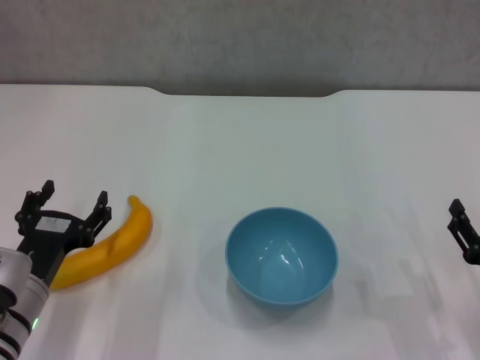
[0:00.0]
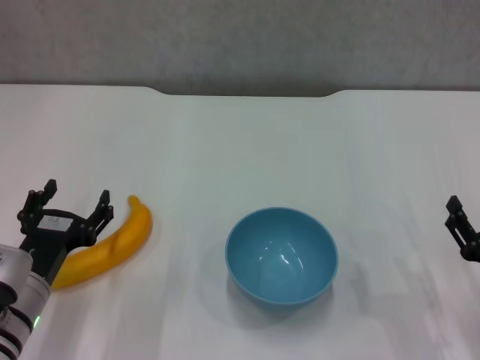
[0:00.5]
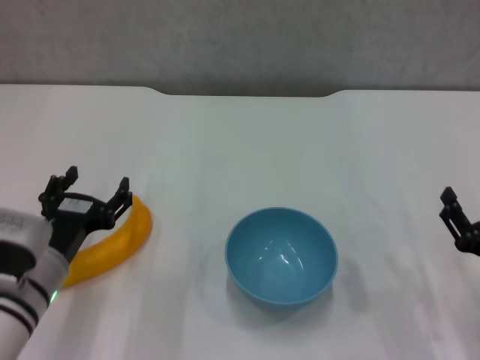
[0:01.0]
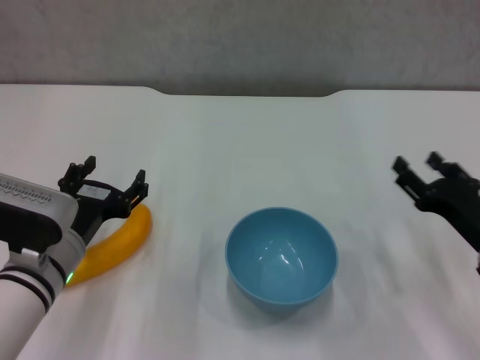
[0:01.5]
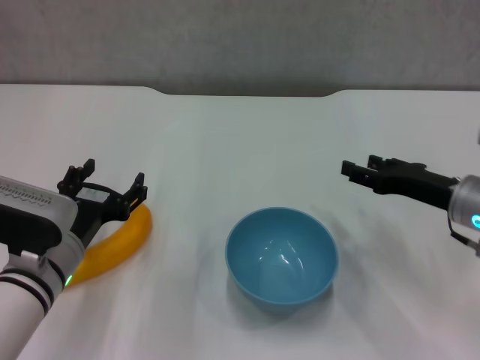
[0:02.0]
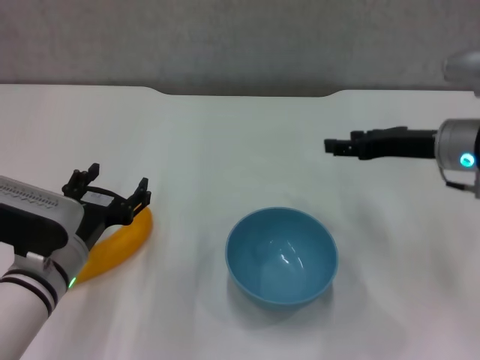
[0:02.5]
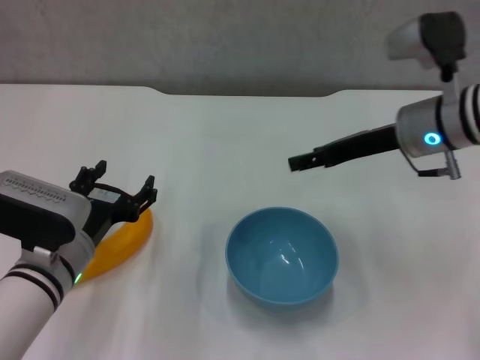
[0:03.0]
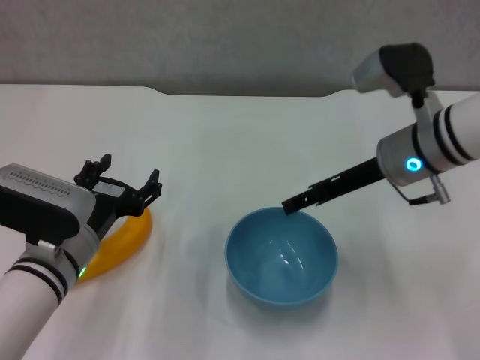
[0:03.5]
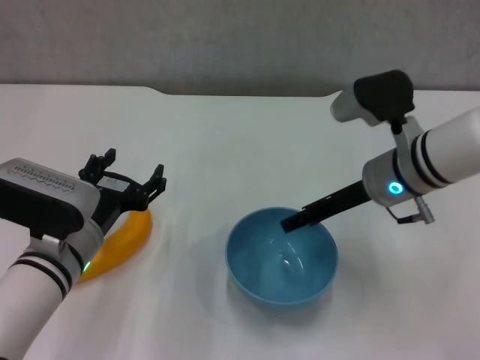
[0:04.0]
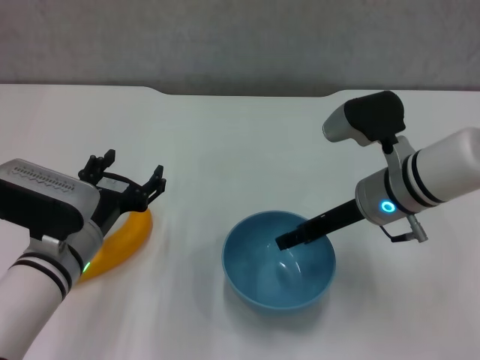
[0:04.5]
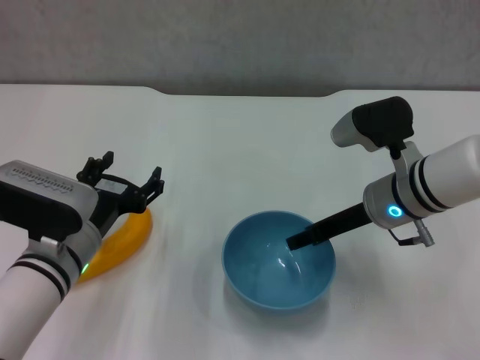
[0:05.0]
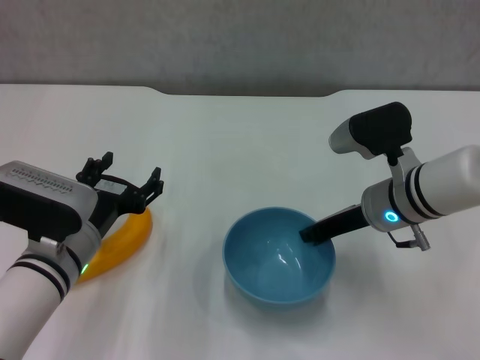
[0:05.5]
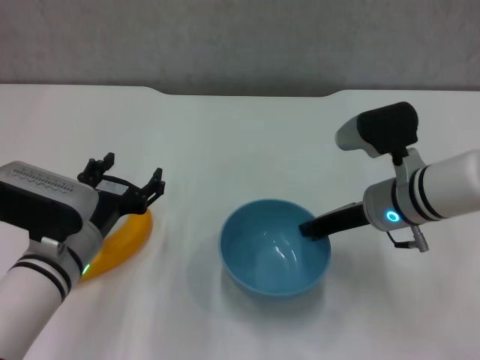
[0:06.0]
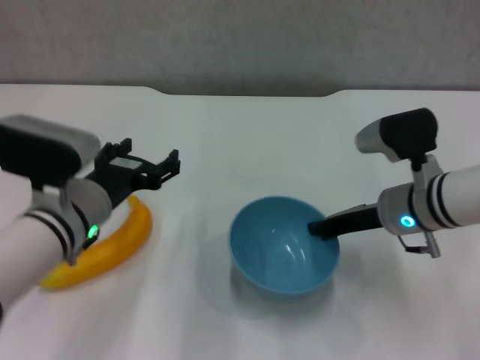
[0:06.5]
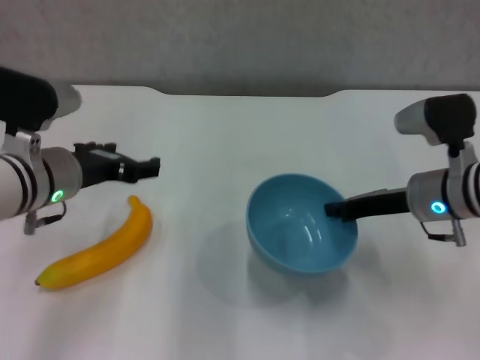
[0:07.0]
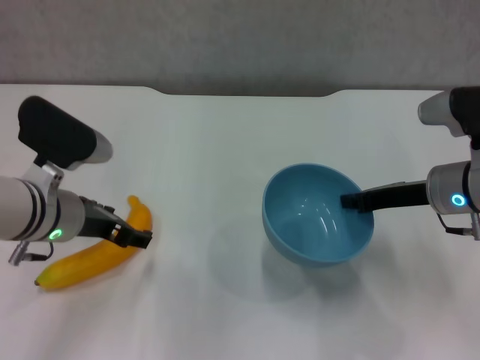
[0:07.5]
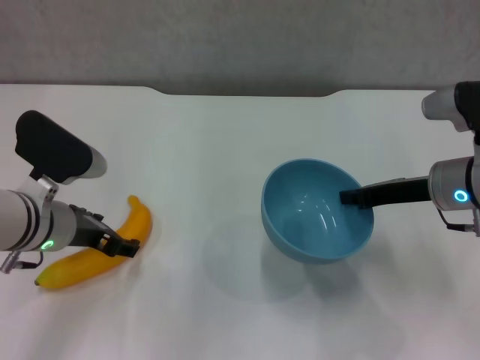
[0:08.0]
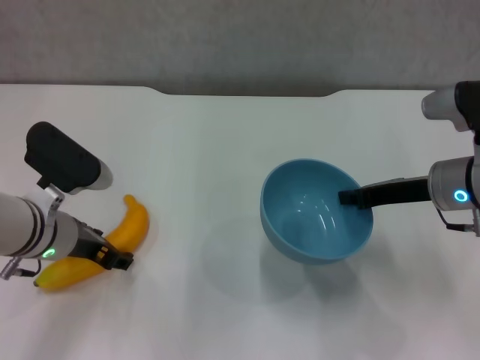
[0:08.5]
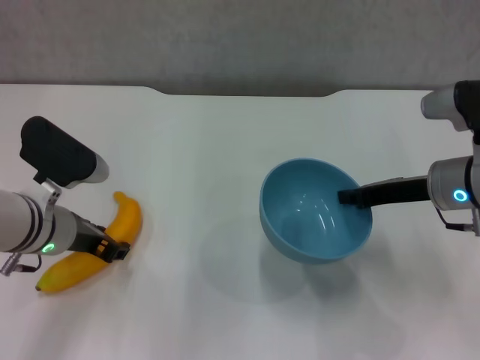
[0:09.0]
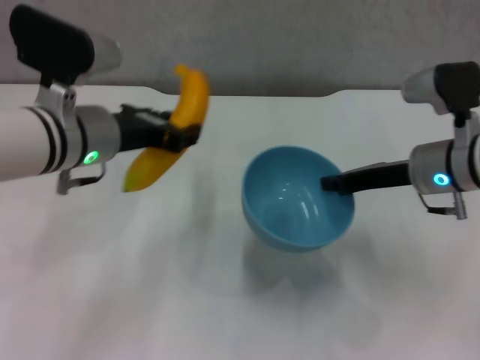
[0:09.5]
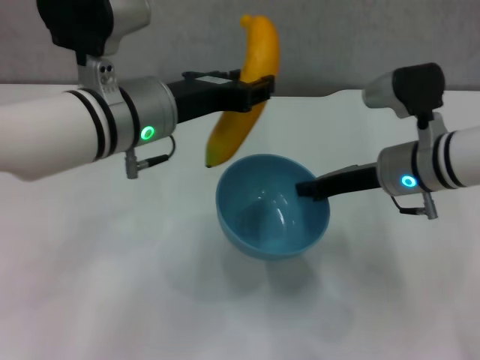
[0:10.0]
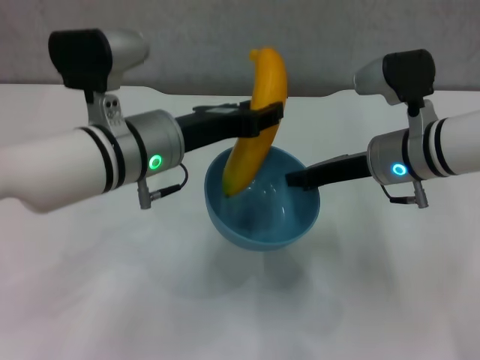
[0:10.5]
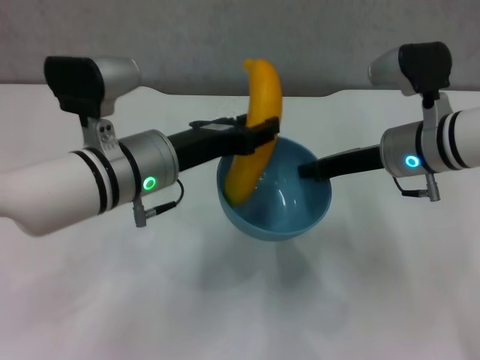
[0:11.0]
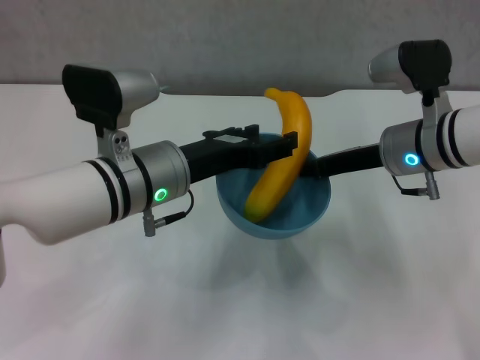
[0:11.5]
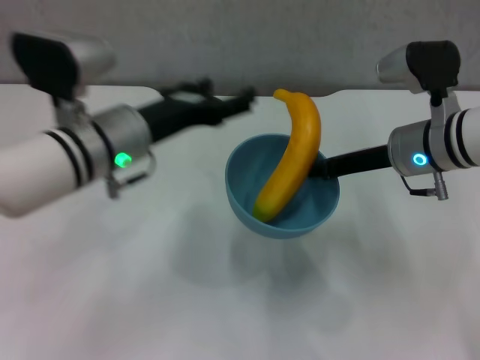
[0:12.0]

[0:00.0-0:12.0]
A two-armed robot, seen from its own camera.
Step, 0:00.0 to 0:05.5: Grasp the blue bowl with right gripper.
Step, 0:06.0 to 0:07.0: Lift the blue bowl with right gripper.
Step, 0:07.5 to 0:08.5: Grasp the banana with left gripper.
Step, 0:09.0 to 0:11.5: Place the banana in the blue bowl with left gripper.
0:00.0 to 0:02.0: The left gripper changes place by some 5 cm; the right gripper heads forward, covering about 15 cm.
0:02.0 to 0:04.0: The right gripper moves to the left, about 10 cm.
0:04.0 to 0:06.0: The right gripper closes.
0:06.0 to 0:08.0: The right gripper heads to the right, covering approximately 5 cm; the left gripper changes place by roughly 5 cm.
0:08.0 to 0:10.0: The right gripper goes approximately 5 cm to the left; the left gripper goes some 15 cm upward and to the right, and closes its fingers.
0:10.0 to 0:12.0: The left gripper opens its fingers.

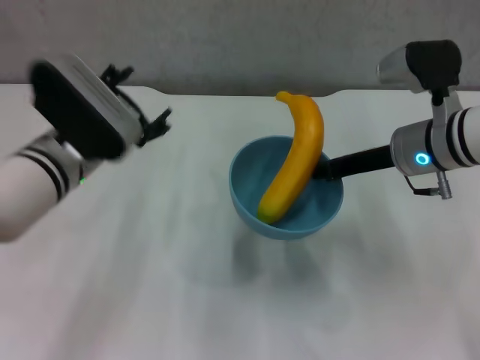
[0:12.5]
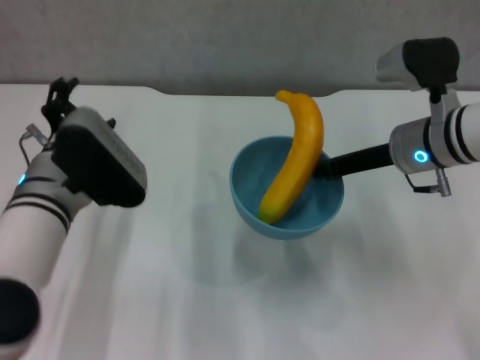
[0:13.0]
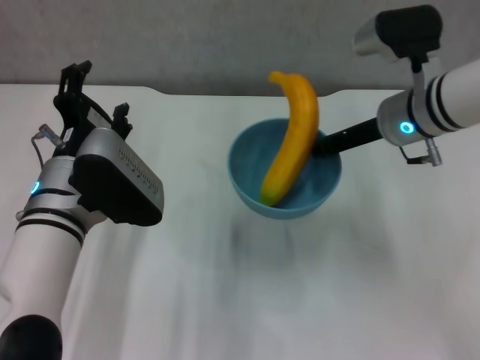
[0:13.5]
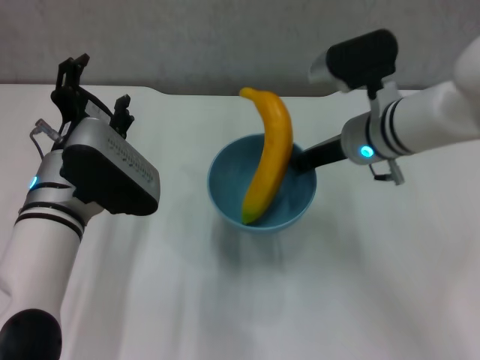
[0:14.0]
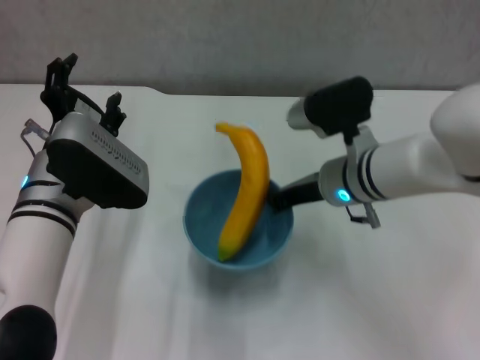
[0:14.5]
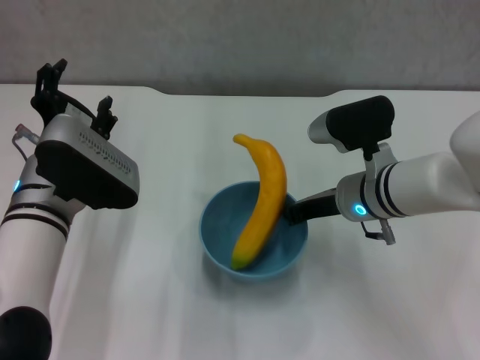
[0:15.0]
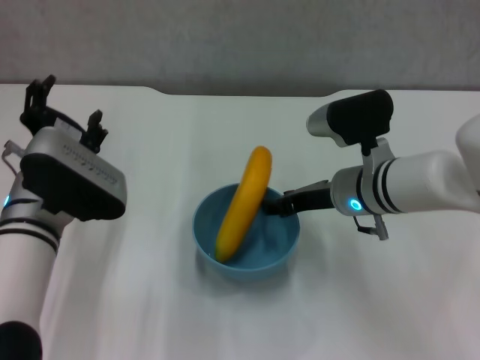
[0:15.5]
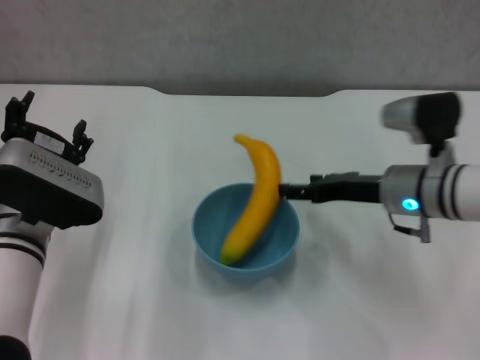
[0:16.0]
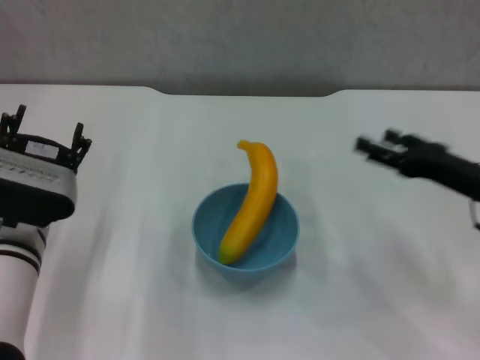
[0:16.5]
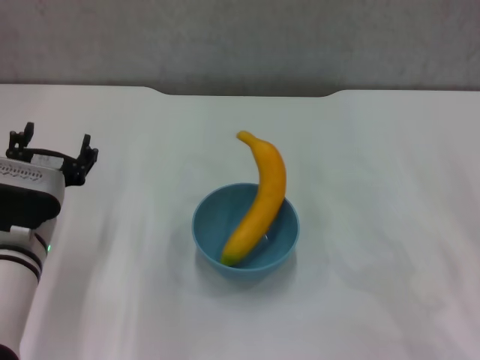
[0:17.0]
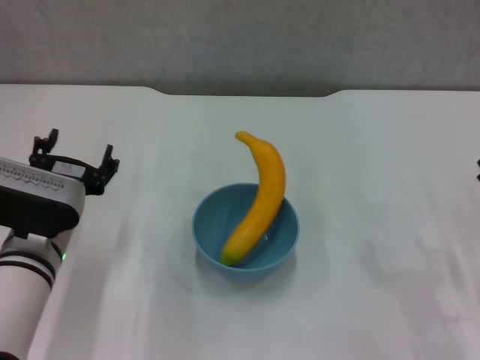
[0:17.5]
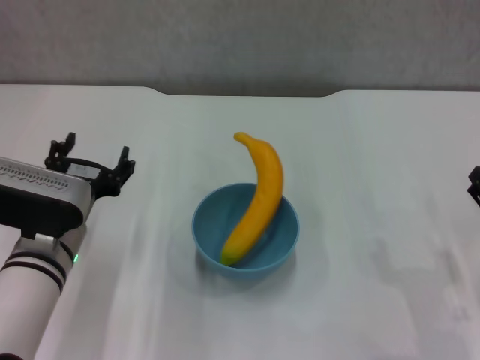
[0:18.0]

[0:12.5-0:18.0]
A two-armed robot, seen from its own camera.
Step, 0:12.5 to 0:15.5: Place the bowl on the table with right gripper.
0:12.5 to 0:14.5: The right gripper shifts approximately 10 cm to the left.
0:14.5 to 0:16.0: The right gripper shifts some 5 cm to the right, and opens its fingers.
0:16.0 to 0:18.0: The right gripper goes approximately 20 cm backward, to the right and downward.
